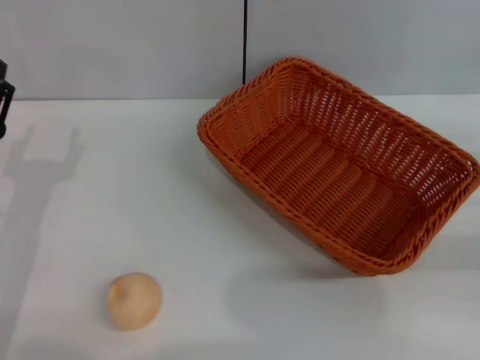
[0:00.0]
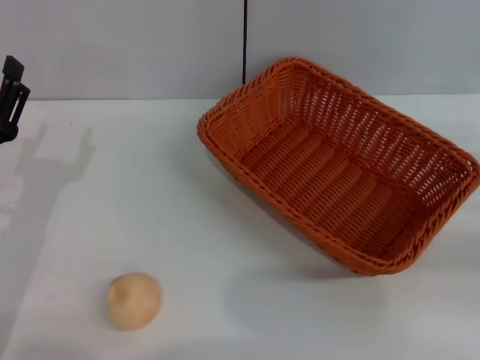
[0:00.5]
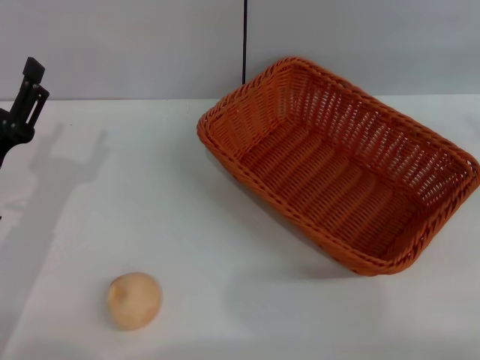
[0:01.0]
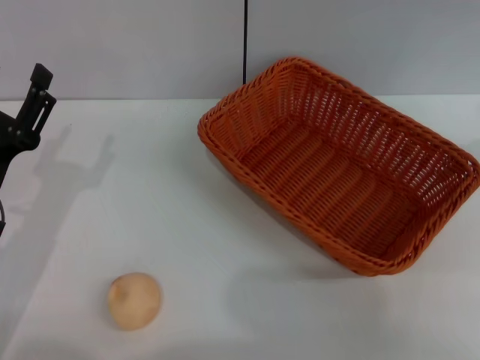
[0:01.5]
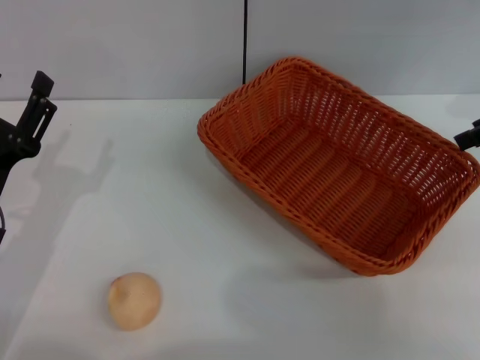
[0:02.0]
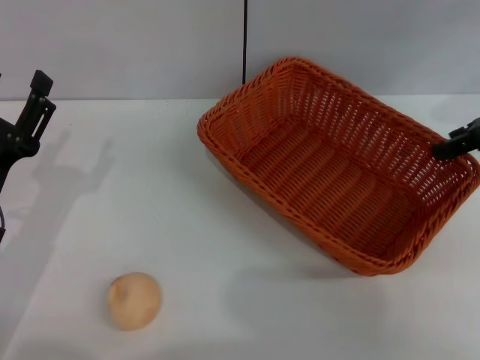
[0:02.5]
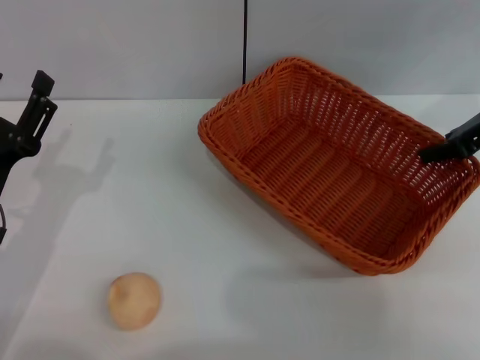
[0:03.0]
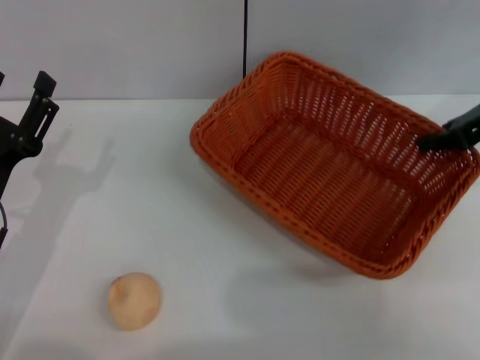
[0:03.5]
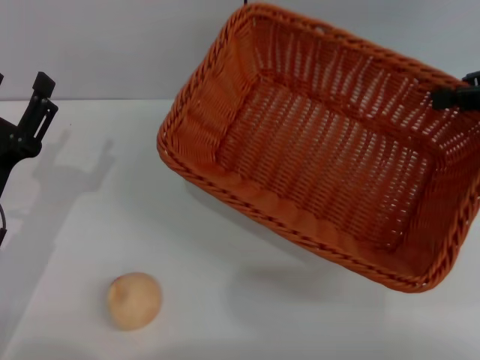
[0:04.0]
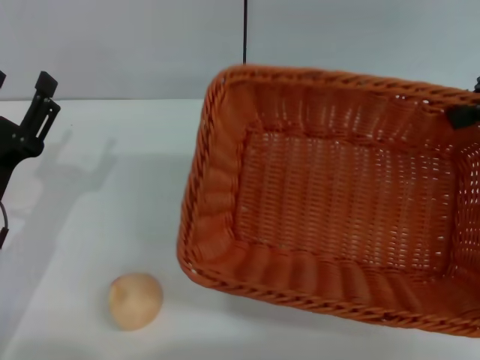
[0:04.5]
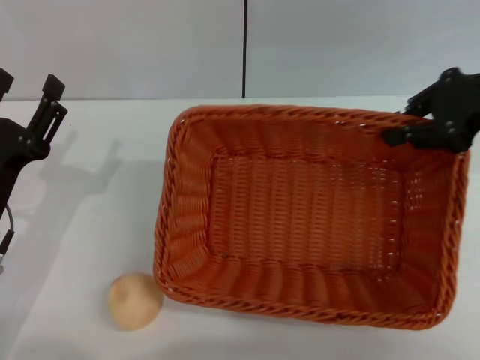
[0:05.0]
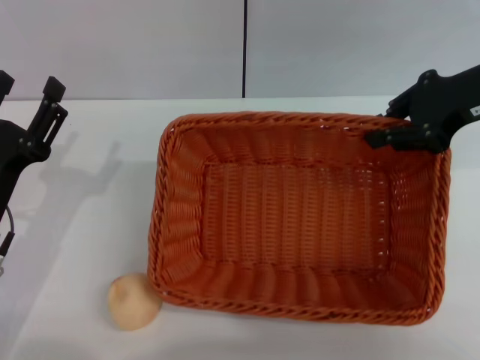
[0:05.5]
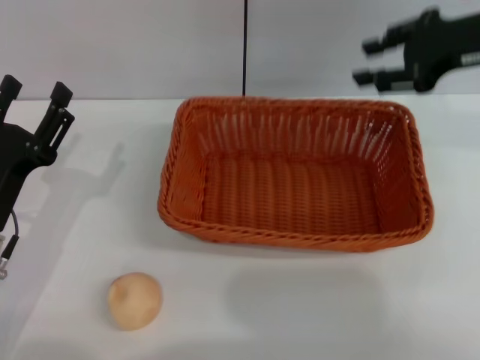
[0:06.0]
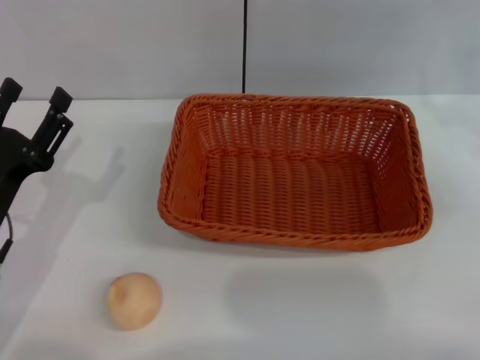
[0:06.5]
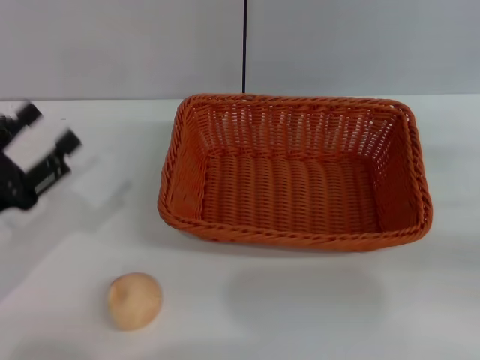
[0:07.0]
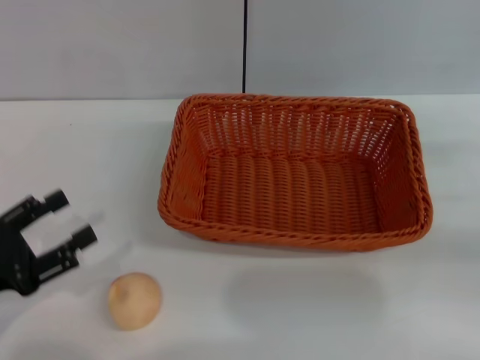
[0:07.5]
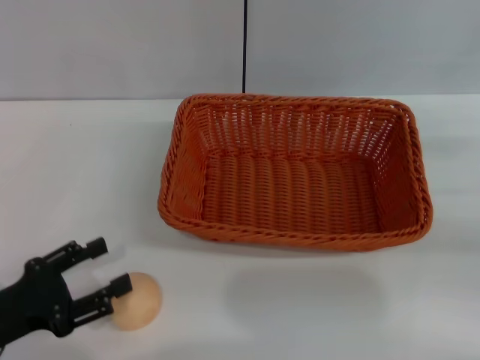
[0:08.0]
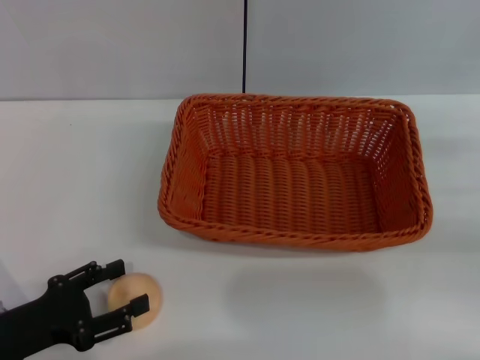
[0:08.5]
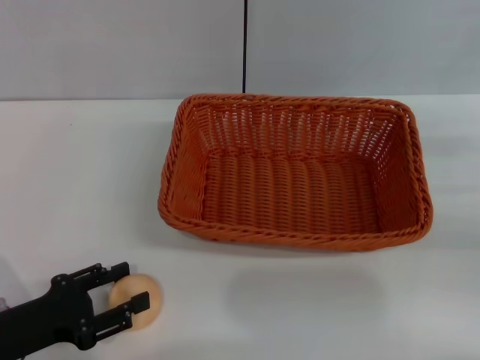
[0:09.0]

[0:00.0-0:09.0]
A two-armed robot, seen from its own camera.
Step, 0:00.0 to 0:06.0: Move the basket to the center of view with the right gripper.
0:00.0 to 0:02.0: The right gripper shifts about 20 cm upward, forward and to the left.
0:02.0 to 0:04.5: The right gripper changes place by some 5 cm, and closes.
0:04.5 to 0:07.0: The right gripper travels downward, backward and to the right by roughly 20 cm, and opens its fingers.
0:07.0 to 0:09.0: The left gripper moves approximately 5 cm.

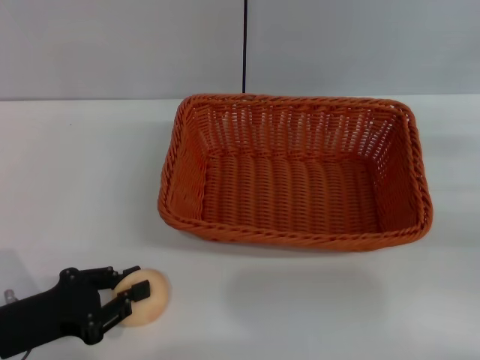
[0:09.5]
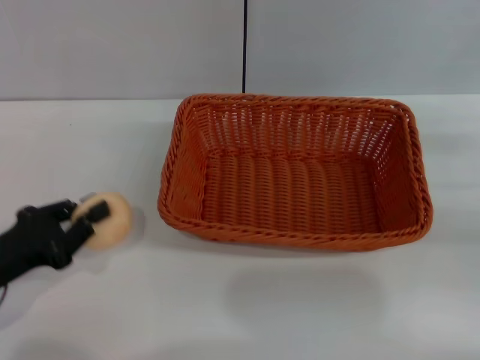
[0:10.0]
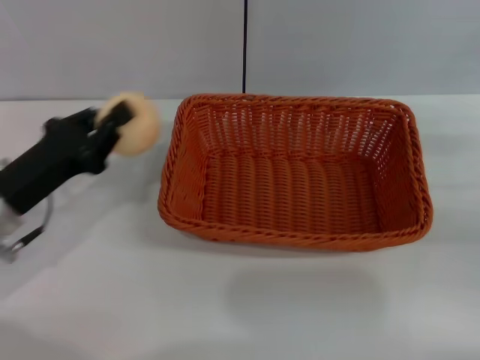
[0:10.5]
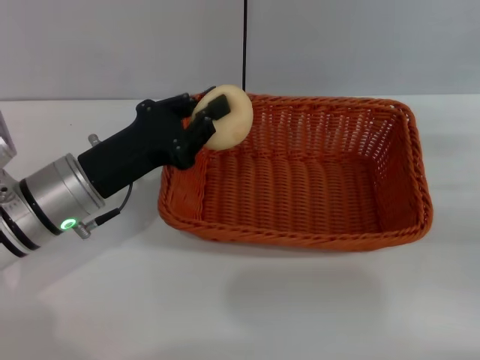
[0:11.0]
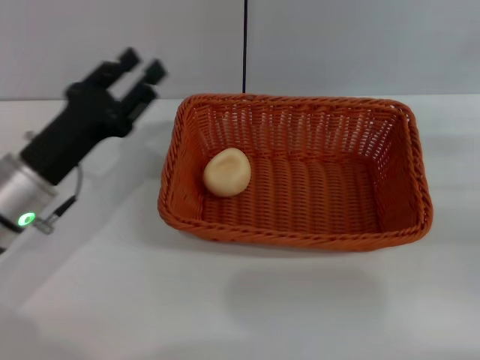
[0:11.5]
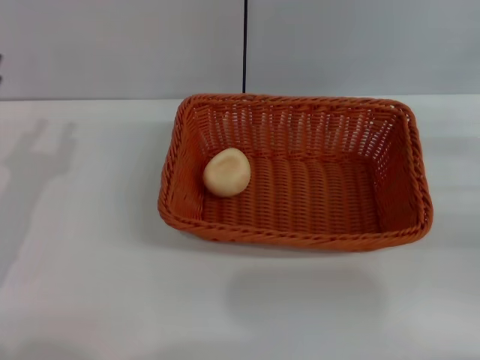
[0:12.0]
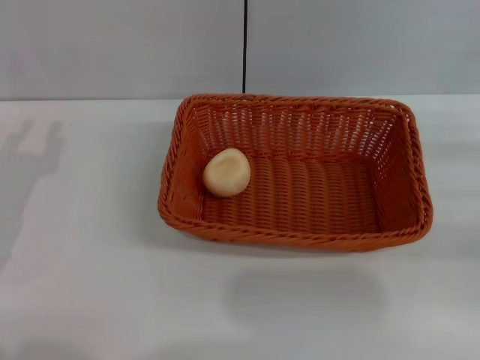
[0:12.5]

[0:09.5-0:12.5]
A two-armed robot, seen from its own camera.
Step, 0:10.0 to 0:11.0: Place the egg yolk pastry into the basket with the left gripper.
0:09.5 to 0:11.0: The left gripper heads forward, to the right and upward, covering some 15 cm.
0:11.0 to 0:12.5: The left gripper moves to the left, about 10 cm, and opens its fingers.
